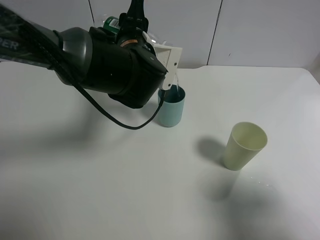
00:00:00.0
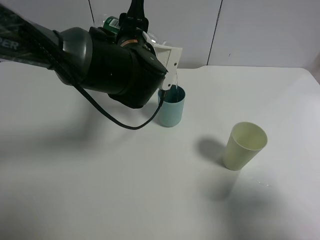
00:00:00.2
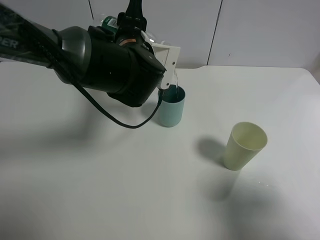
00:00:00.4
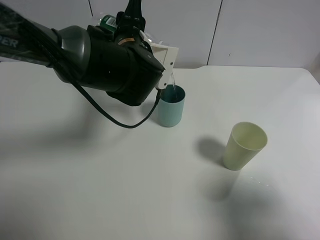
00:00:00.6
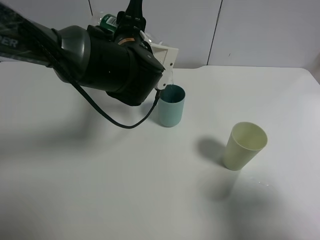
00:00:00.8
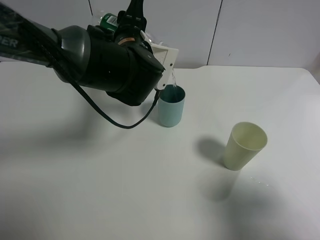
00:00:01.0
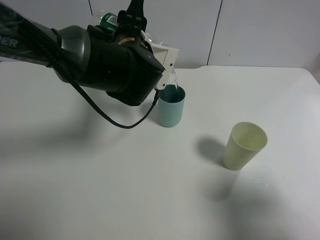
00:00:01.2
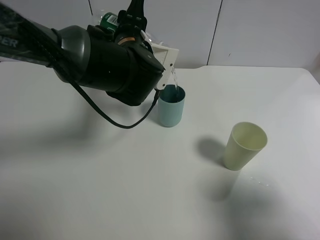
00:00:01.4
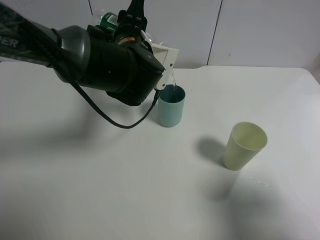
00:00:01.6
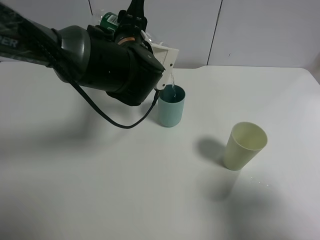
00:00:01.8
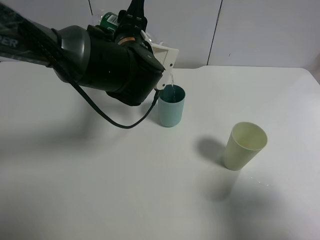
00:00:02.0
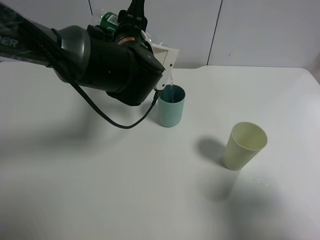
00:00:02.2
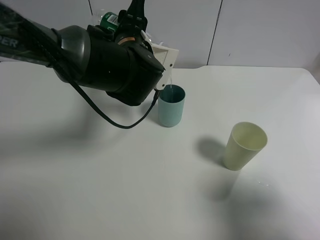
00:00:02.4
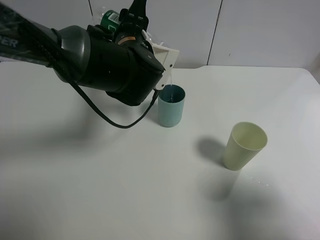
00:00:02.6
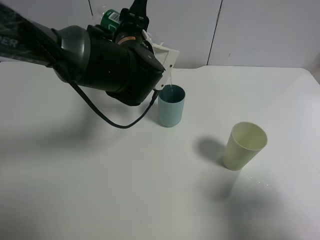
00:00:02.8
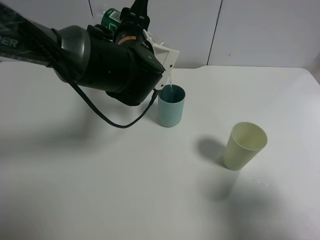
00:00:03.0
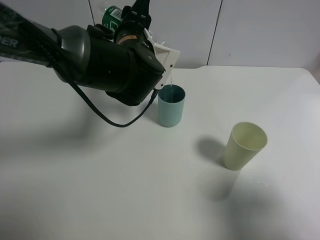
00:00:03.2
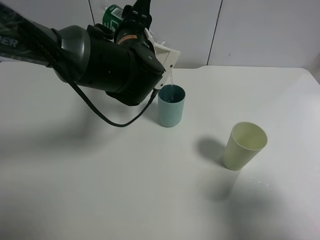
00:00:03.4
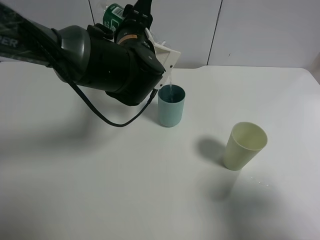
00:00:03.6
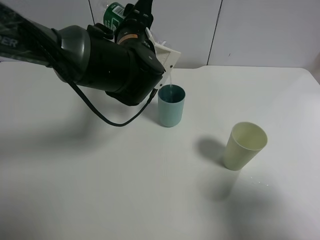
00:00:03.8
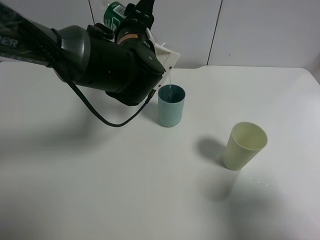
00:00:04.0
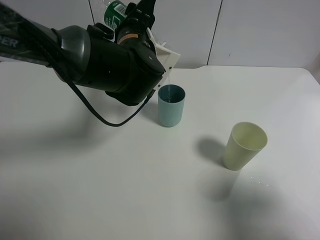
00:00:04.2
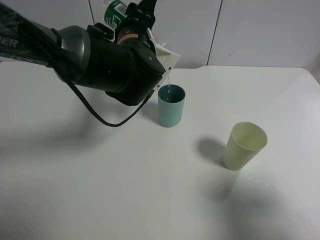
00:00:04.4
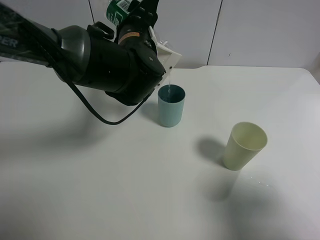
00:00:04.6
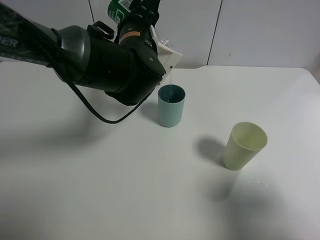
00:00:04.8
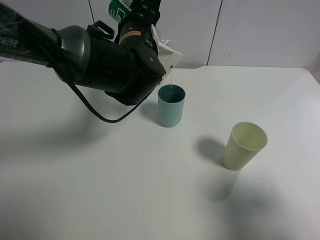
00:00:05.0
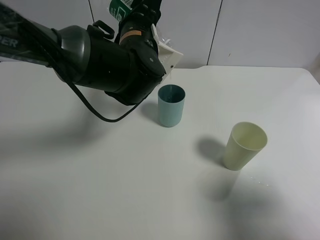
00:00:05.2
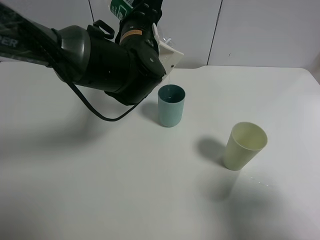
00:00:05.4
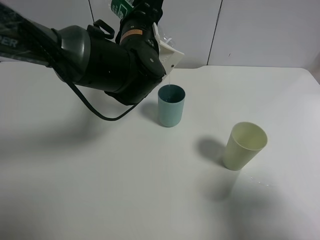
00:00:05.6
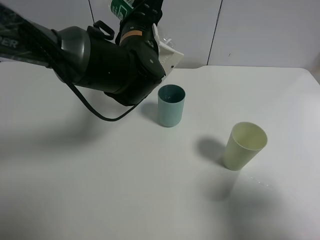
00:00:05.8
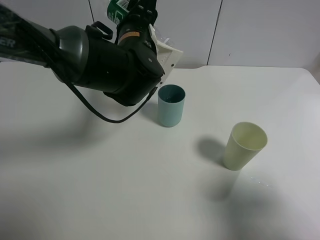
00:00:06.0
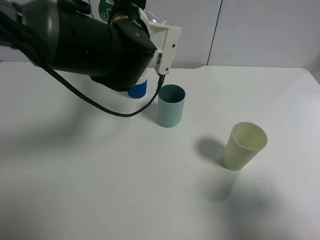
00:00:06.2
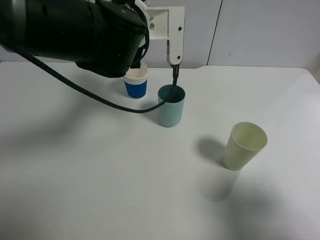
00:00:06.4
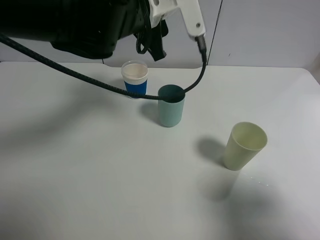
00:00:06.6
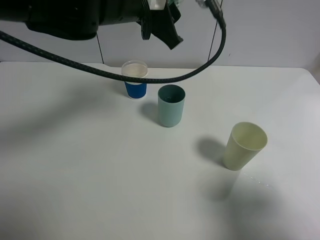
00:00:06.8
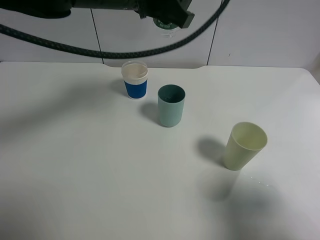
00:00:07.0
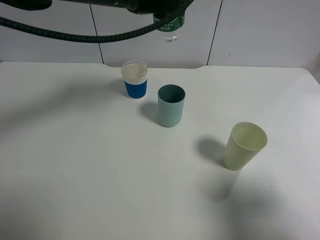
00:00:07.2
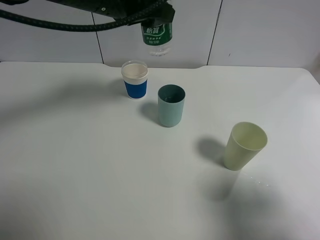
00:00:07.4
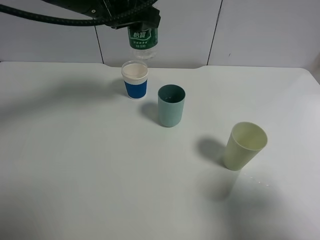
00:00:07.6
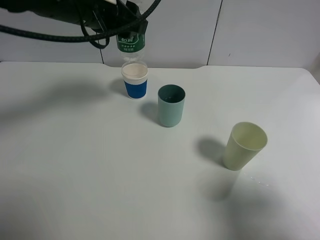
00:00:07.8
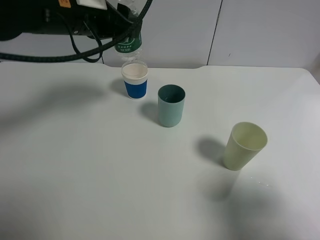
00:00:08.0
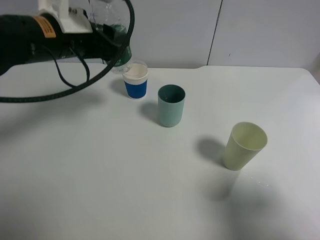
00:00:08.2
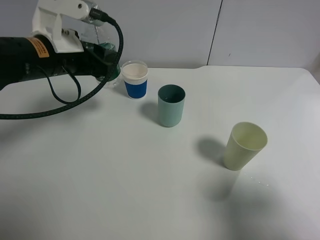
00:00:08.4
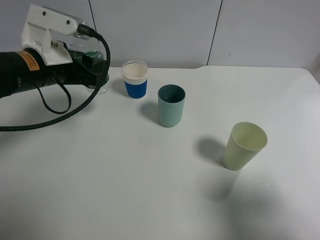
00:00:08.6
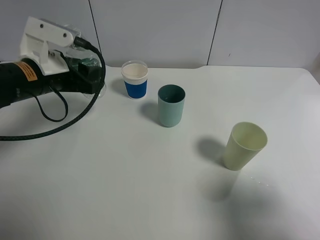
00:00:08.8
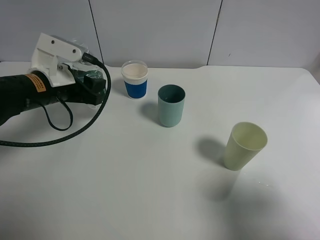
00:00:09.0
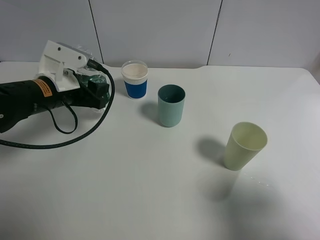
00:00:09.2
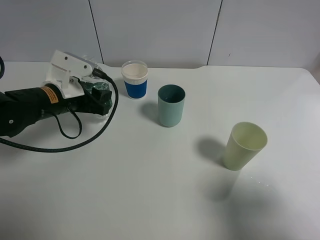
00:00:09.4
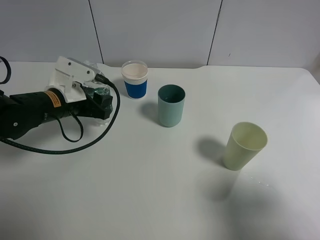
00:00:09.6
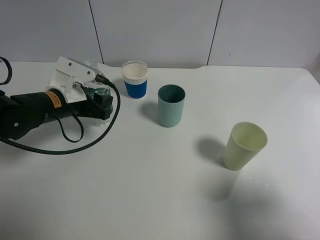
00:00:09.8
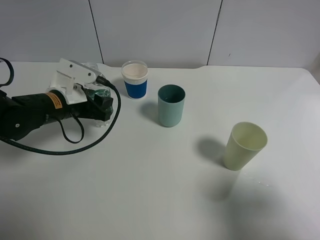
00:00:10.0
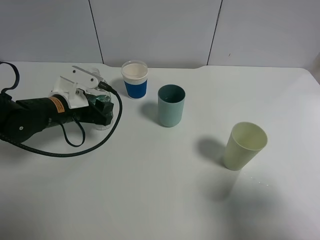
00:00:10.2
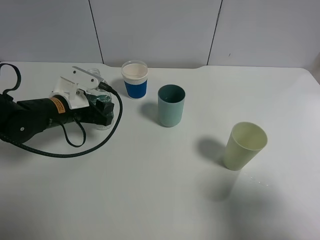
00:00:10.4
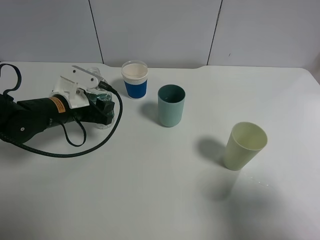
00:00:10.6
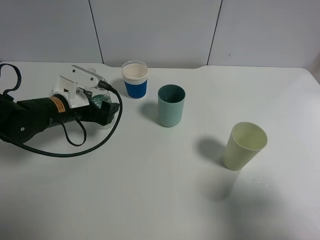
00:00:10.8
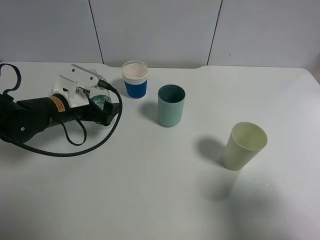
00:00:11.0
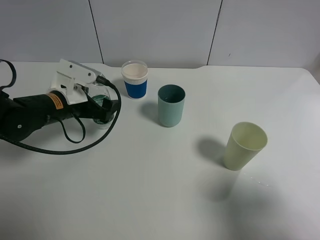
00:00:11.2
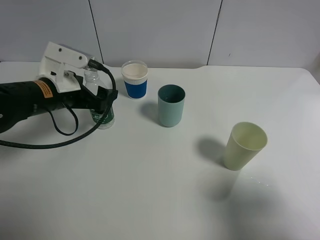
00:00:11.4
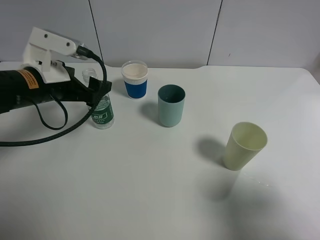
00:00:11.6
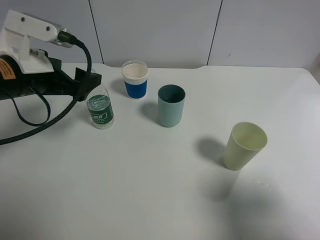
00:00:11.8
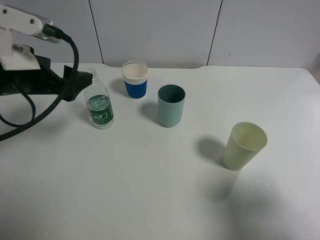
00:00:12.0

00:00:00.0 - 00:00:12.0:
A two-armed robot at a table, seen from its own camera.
Task of the whole recording: use a gripper to hold the bottle of the drink and pour it into a random cup.
Step, 00:00:00.0 - 00:00:06.4: Pour the mineral water into the cyan cup with the left gripper.
Step, 00:00:06.6 - 00:00:11.4: Place the mineral water bottle on the table with the left gripper.
00:00:00.0 - 00:00:01.6: Both grippers stay about where they are.
00:00:01.6 - 00:00:03.0: Neither gripper changes place.
00:00:03.0 - 00:00:06.0: The grippers move only a little.
00:00:06.0 - 00:00:07.6: The left gripper shifts approximately 10 cm upward and to the left.
00:00:07.6 - 00:00:09.0: The left gripper is displaced downward and to the left by roughly 15 cm.
00:00:09.0 - 00:00:10.4: The left gripper moves downward, some 5 cm.
00:00:10.4 - 00:00:12.0: The left gripper goes some 15 cm upward and backward, and opens.

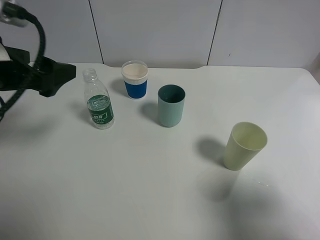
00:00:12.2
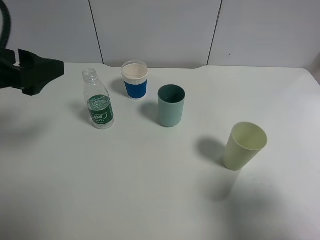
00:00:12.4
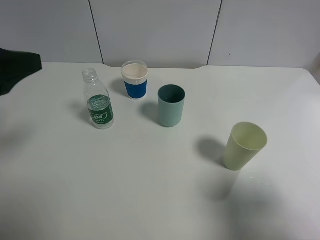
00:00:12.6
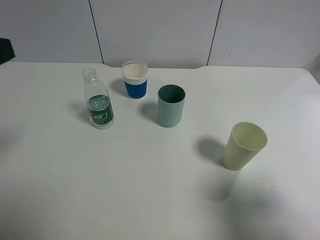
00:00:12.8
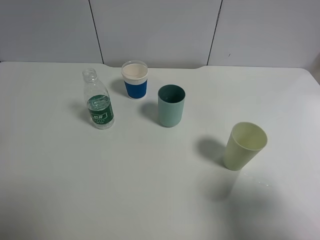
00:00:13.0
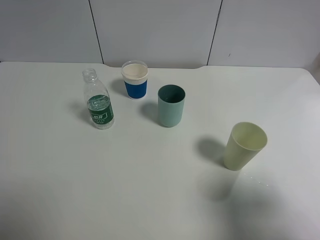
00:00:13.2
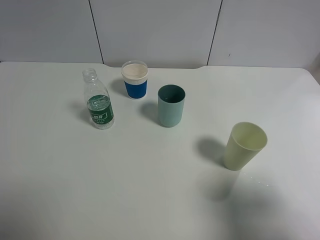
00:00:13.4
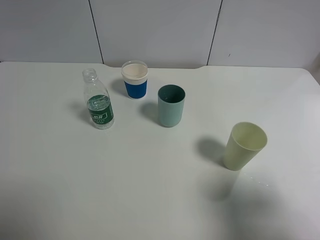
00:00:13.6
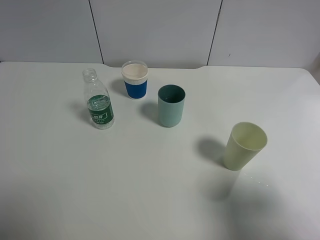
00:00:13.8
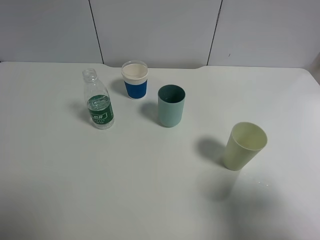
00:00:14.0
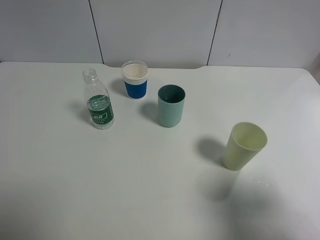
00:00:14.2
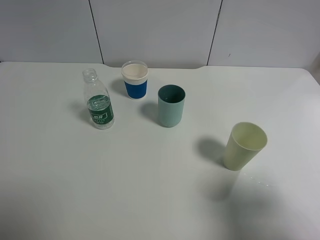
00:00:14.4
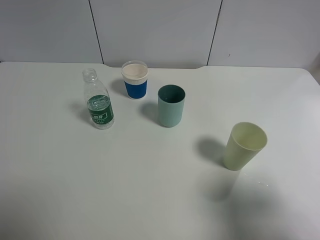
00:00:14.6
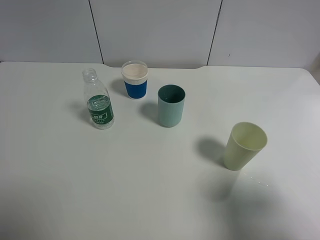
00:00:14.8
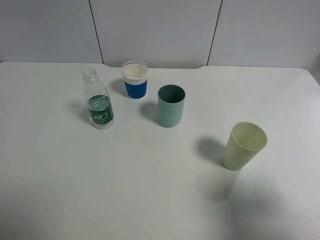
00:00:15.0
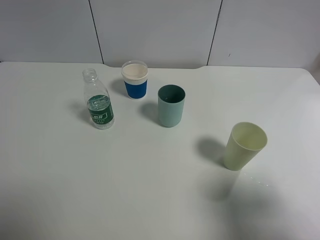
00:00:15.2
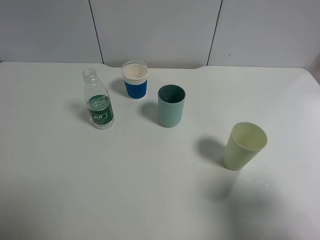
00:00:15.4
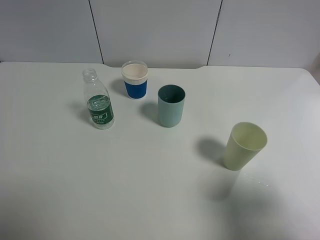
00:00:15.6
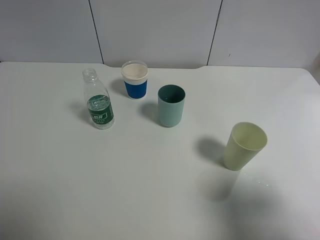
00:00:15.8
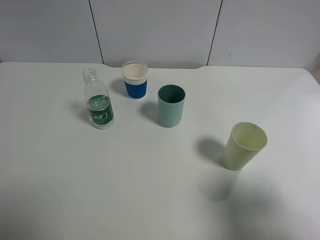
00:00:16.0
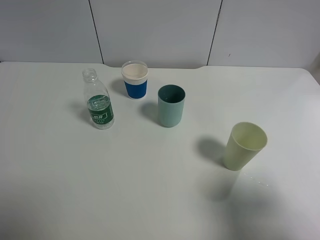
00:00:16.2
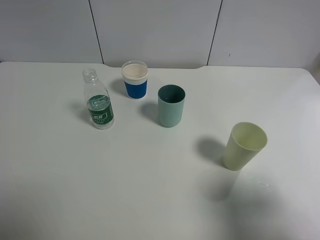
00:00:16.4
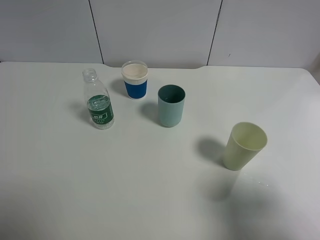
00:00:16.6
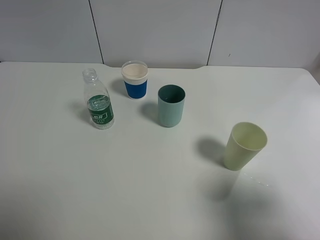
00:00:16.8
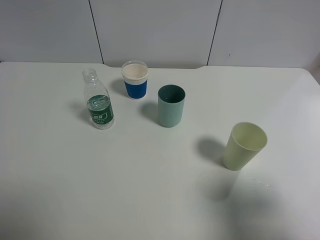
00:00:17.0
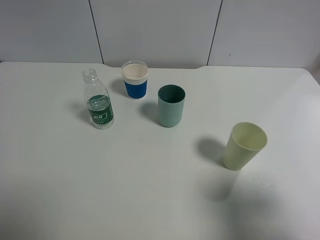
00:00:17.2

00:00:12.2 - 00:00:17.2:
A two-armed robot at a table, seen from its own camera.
Task of the whole recording: use a gripper to hold the bottle of the drink and pour it into a random cup.
00:00:12.2 - 00:00:13.8: The left gripper moves backward, upward and to the left, approximately 25 cm.
00:00:15.6 - 00:00:17.2: Both grippers stay put.
